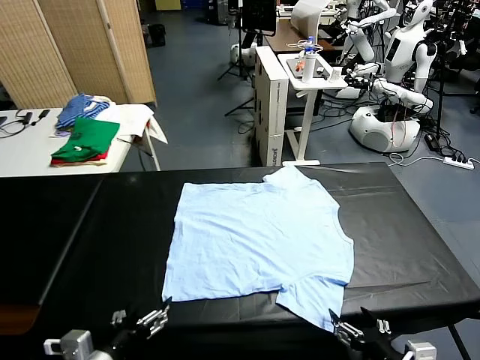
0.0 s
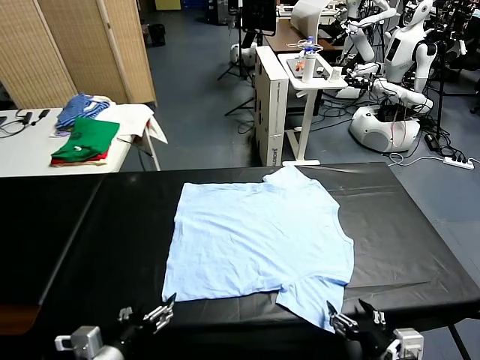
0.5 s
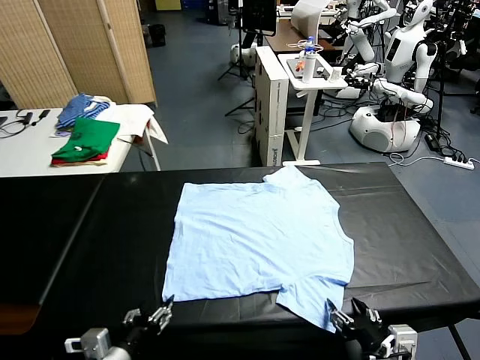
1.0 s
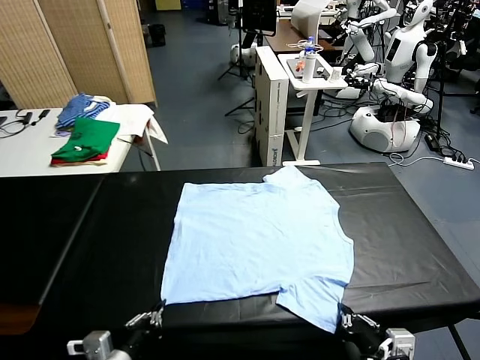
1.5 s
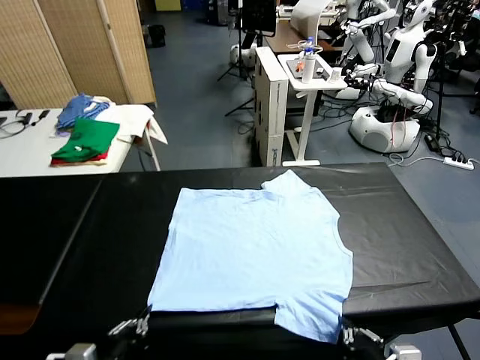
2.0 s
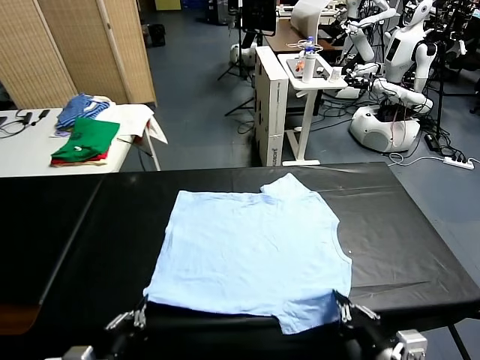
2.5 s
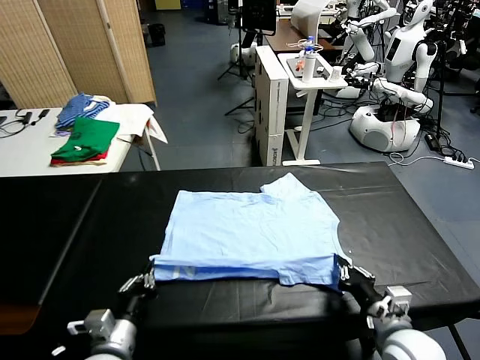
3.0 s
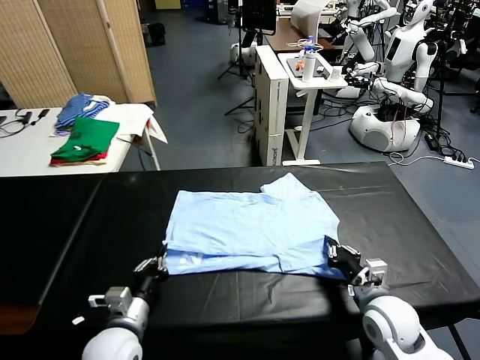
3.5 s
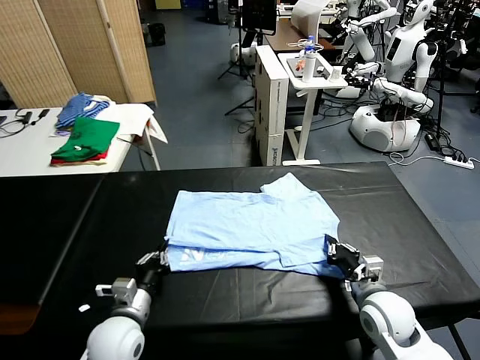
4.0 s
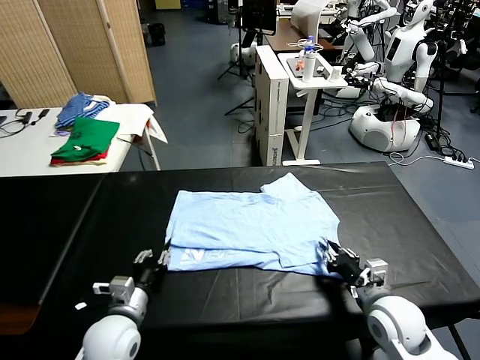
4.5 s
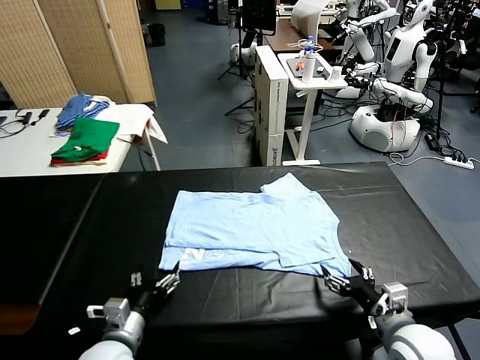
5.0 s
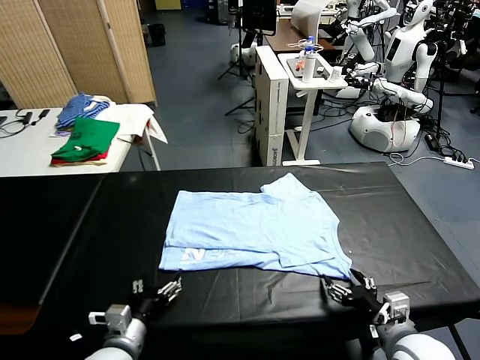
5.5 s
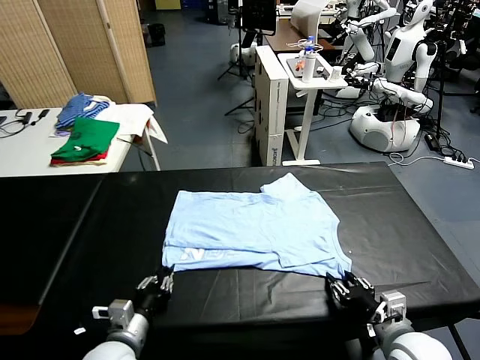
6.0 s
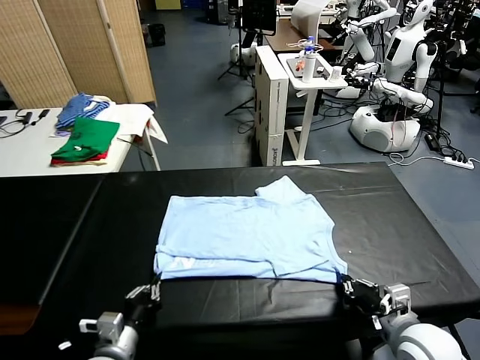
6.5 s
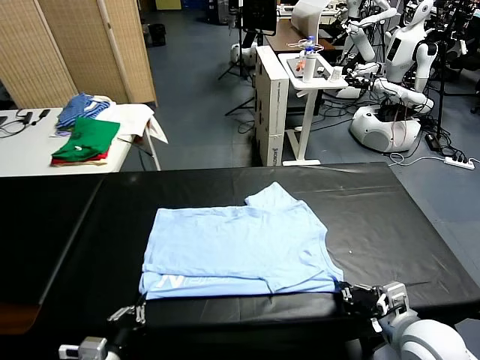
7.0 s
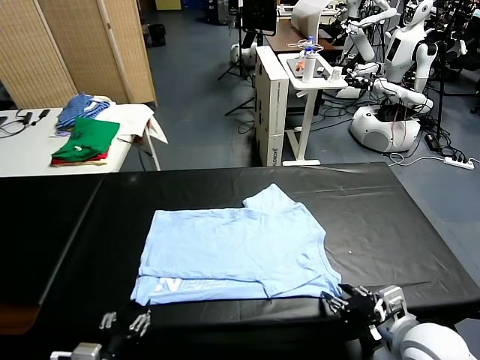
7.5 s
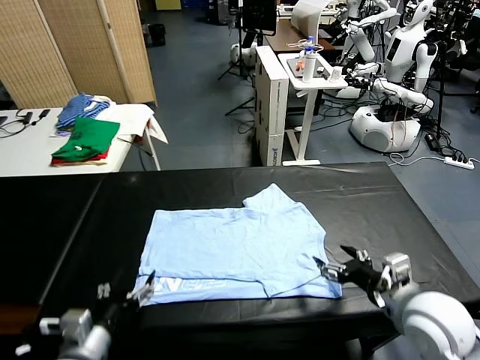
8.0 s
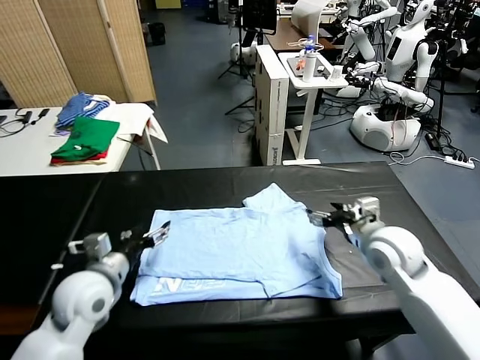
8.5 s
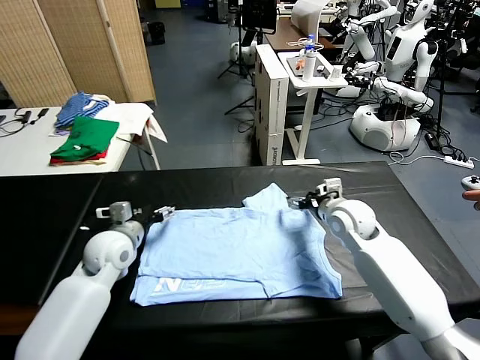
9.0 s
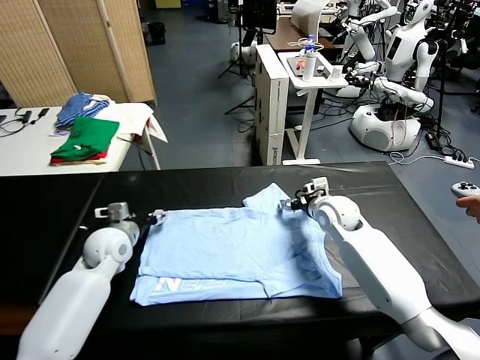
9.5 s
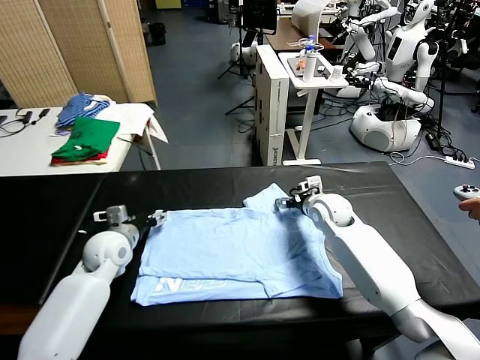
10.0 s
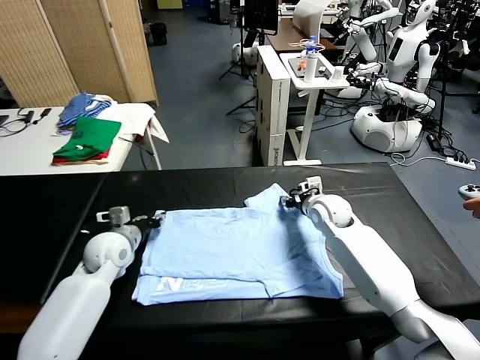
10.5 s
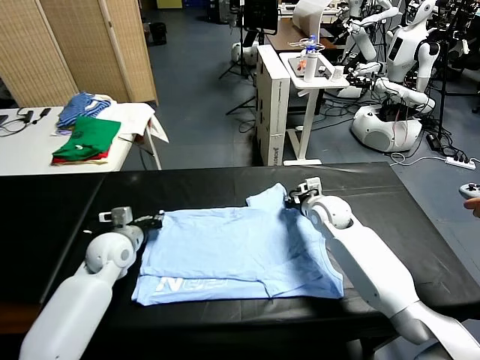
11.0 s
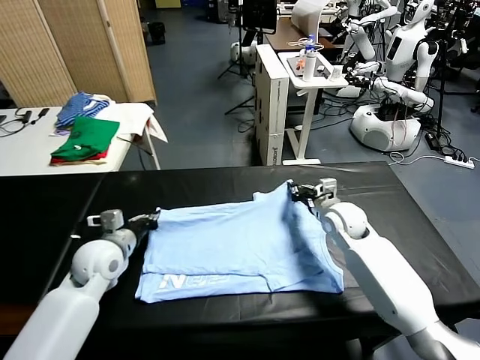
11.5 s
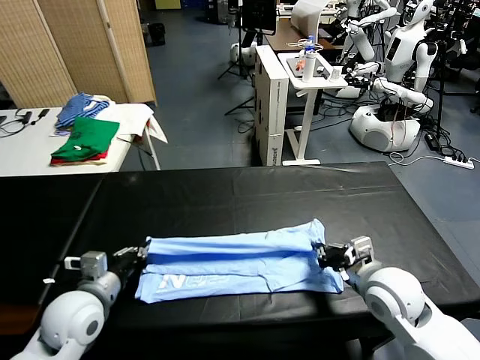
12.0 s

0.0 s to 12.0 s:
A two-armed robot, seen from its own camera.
Task of the whole recording: fold and organize the clothes.
Step, 0.0 to 1.5 s: use both grippers simultaneously to clamp the lower edge of the clothing fabric.
Step, 2.0 to 4.5 s: use both grippers to drag the lower edge of the fabric forward and fold it over the upper edge.
Step, 5.0 to 7.5 s: Drag the clothes downward with both gripper.
Step, 8.0 to 11.0 s: use both grippers simultaneously to clamp the upper edge of the clothing fabric.
2.0 to 4.0 s: The left gripper moves forward and downward, some 15 cm. Meanwhile the right gripper heads forward, covering roughly 20 cm.
4.0 to 6.0 s: Both grippers move backward, some 5 cm. The right gripper opens and closes again. The left gripper opens, then closes again.
6.0 to 8.0 s: The left gripper heads upward, covering about 10 cm, reaches approximately 10 cm backward, then returns, and opens up. The right gripper goes some 15 cm forward and upward, and opens up.
8.0 to 10.0 s: The left gripper heads forward, covering roughly 20 cm, and closes its fingers; the right gripper travels forward, downward and to the left by about 20 cm, and closes.
10.0 to 12.0 s: The grippers both shift backward by approximately 15 cm. The right gripper closes its fingers, while the left gripper closes up.

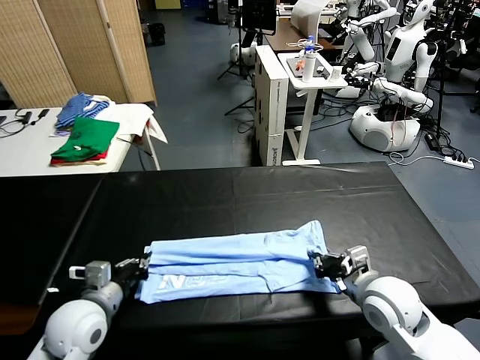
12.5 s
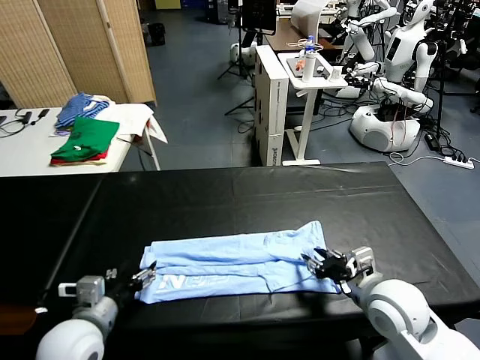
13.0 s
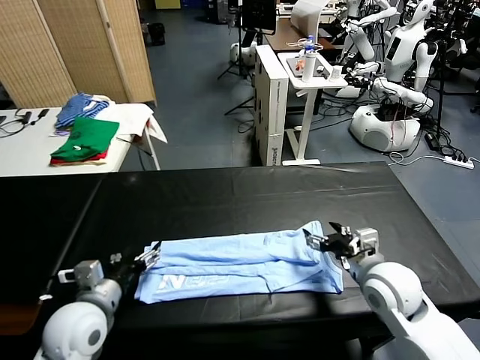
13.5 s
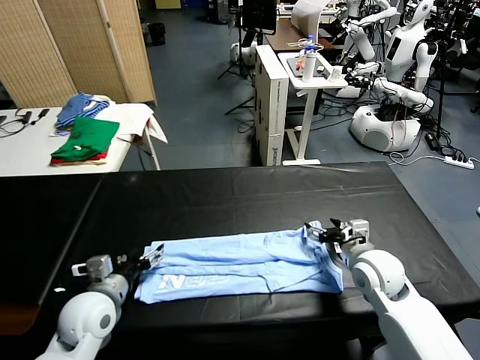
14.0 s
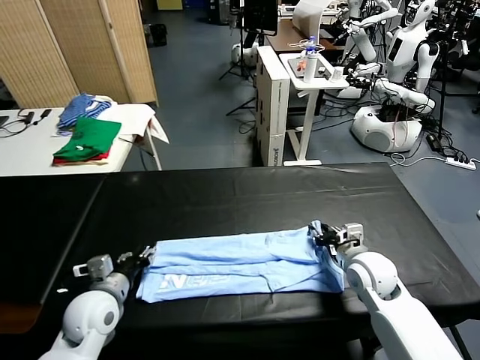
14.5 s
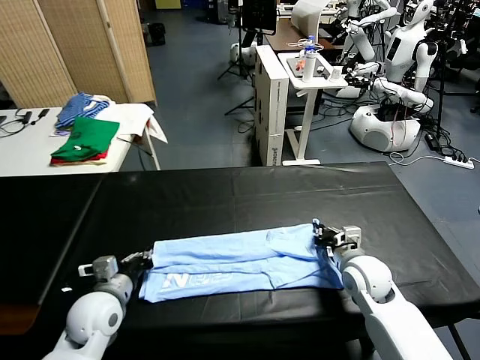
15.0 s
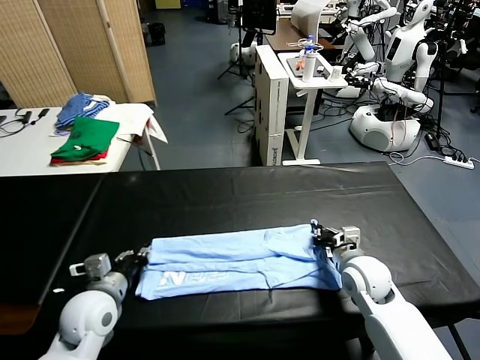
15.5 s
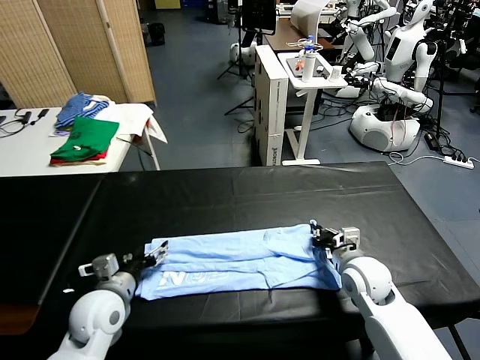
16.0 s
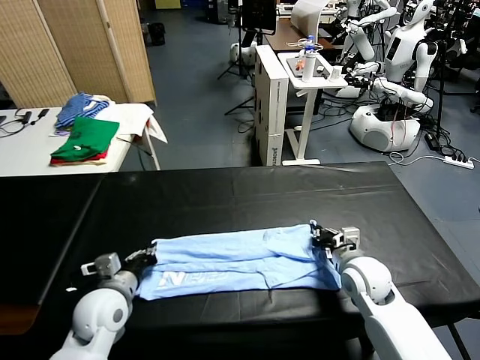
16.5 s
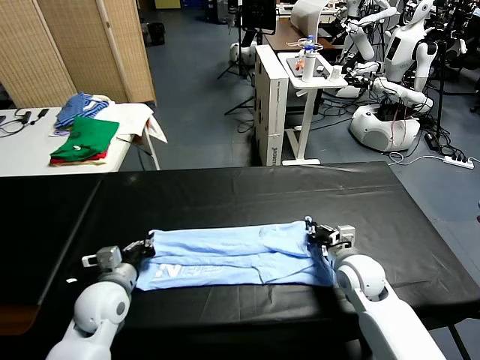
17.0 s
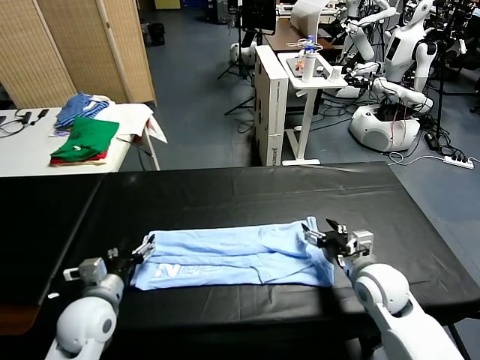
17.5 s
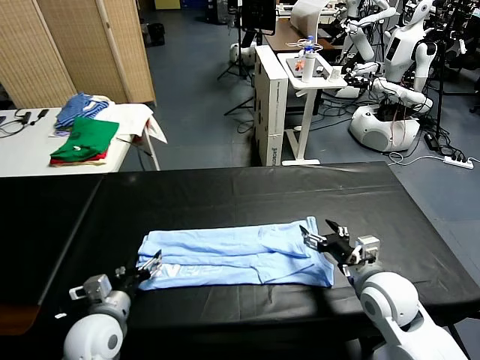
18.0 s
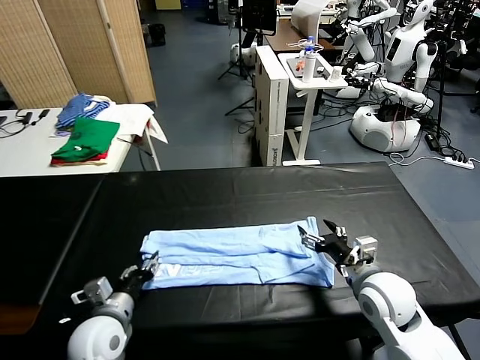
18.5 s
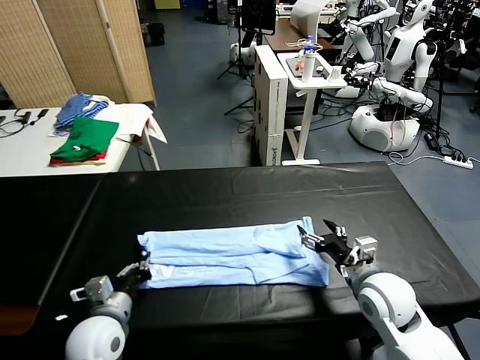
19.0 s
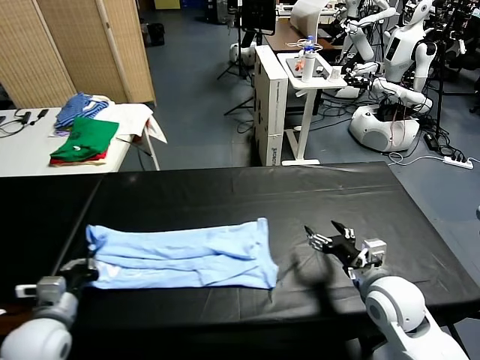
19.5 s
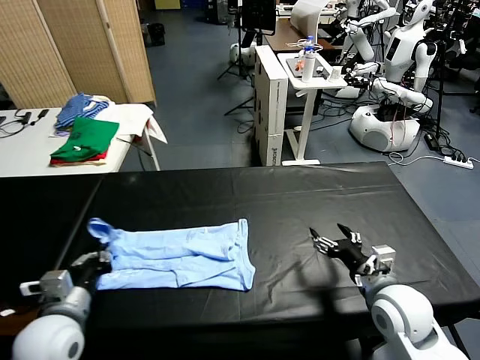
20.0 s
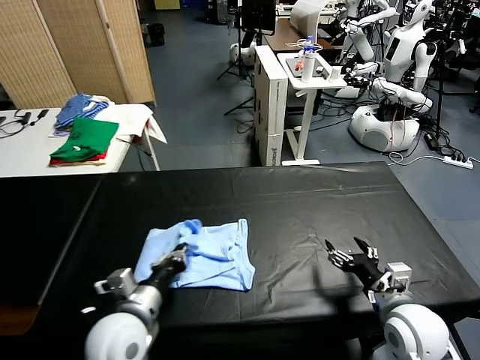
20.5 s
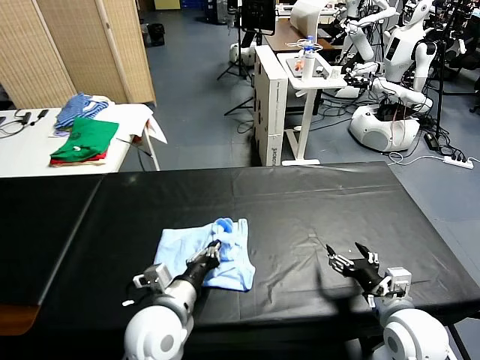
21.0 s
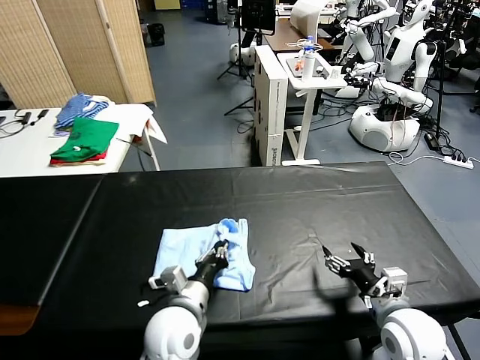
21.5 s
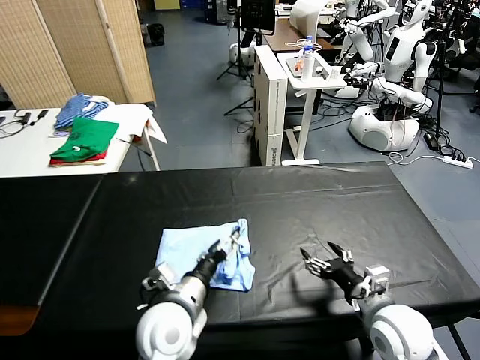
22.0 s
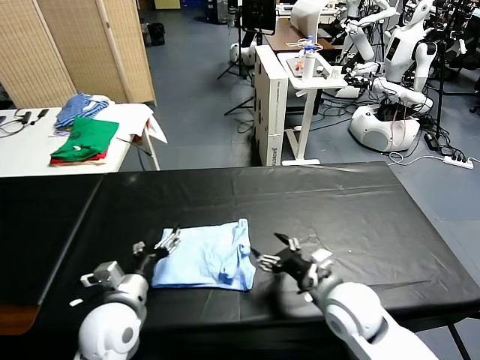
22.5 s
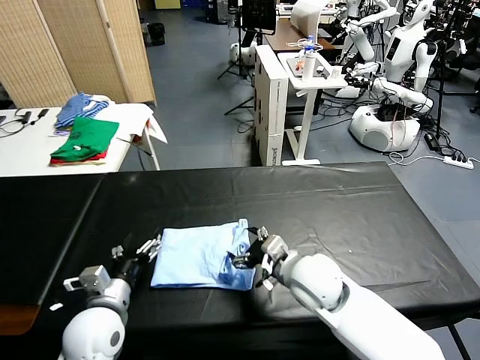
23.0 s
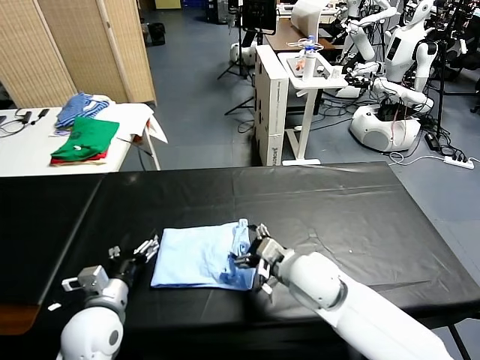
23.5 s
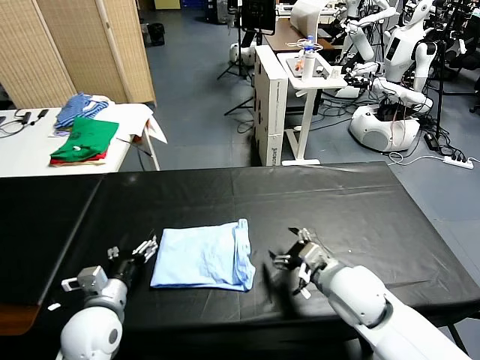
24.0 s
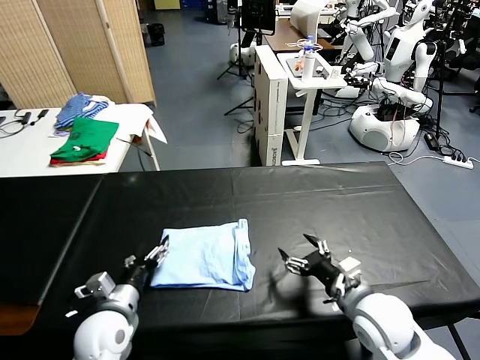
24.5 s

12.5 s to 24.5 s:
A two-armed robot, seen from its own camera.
Task of the whole recording: fold and organize the clothes.
Step, 13.5 to 19.0 s: use the left gripper to clamp the left edge of the fabric.
Step, 19.5 to 21.5 s: use the left gripper to drag the left edge of the fabric to the left and folds it over the right edge.
12.5 to 14.5 s: The left gripper travels backward and back again, some 5 cm each way, and opens up, while the right gripper is displaced forward by some 5 cm, and opens.
14.5 to 16.5 s: The right gripper closes its fingers; the left gripper closes, then reopens.
16.5 to 18.5 s: The right gripper travels backward by some 5 cm, and opens its fingers; the left gripper changes place by about 5 cm, and closes, then reopens.
18.5 to 20.5 s: The left gripper is displaced upward by approximately 5 cm, goes to the left and returns, roughly 10 cm each way, and closes; the right gripper moves roughly 5 cm.
20.5 to 22.5 s: The left gripper moves to the right, roughly 5 cm, and opens, while the right gripper moves to the left, approximately 5 cm.
22.5 to 24.5 s: The left gripper travels to the left by some 10 cm. The right gripper moves approximately 10 cm to the left and comes back.

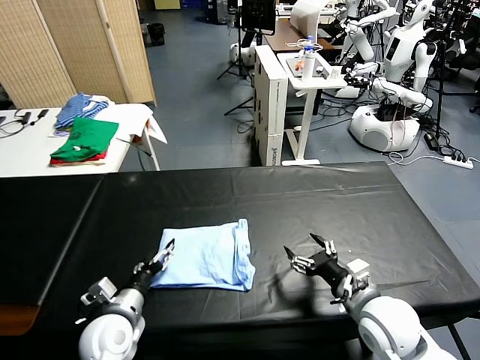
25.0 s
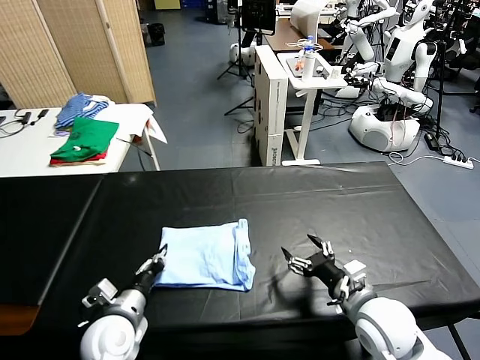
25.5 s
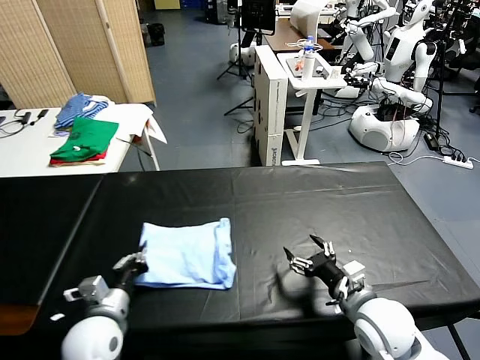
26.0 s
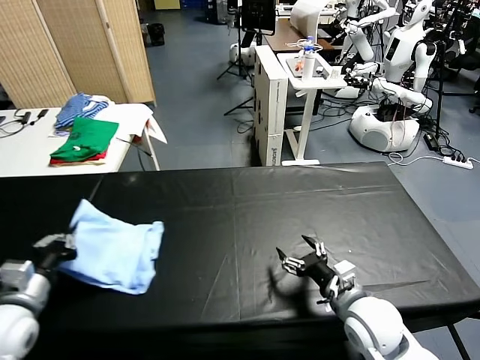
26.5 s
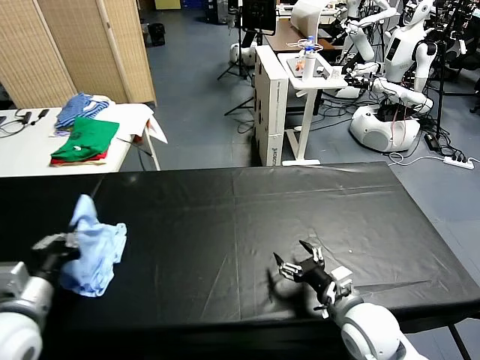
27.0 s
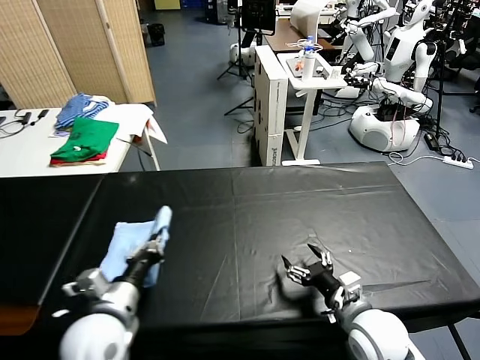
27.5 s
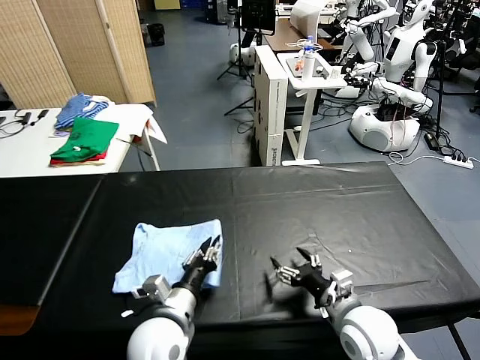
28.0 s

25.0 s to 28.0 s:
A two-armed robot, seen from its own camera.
Task of the whole recording: fold and organize the clothes.
Step, 25.0 to 28.0 s: Flip the folded clothes over with left gripper.
25.0 to 26.5 s: The left gripper is displaced to the left and upward by approximately 10 cm, and closes.
26.5 to 28.0 s: The left gripper moves to the right, about 20 cm.
